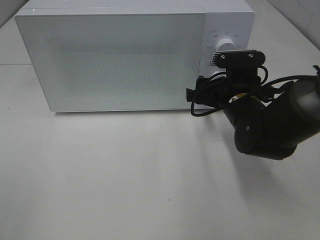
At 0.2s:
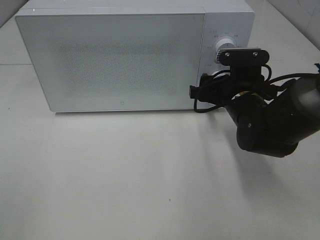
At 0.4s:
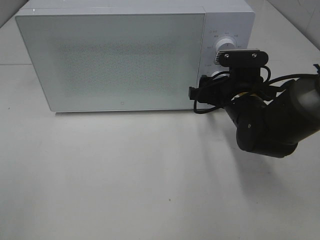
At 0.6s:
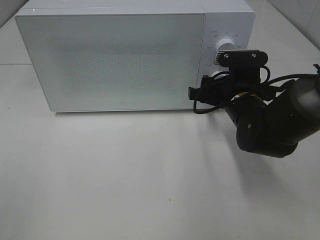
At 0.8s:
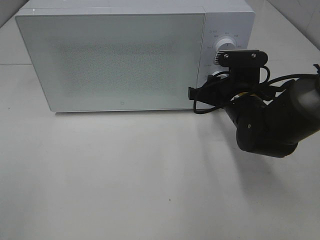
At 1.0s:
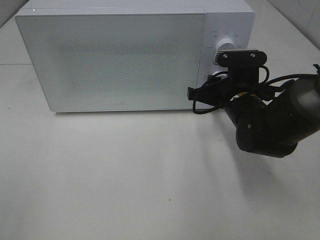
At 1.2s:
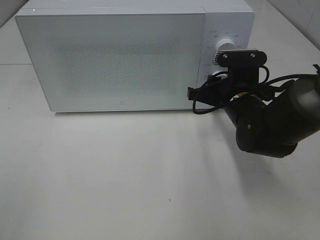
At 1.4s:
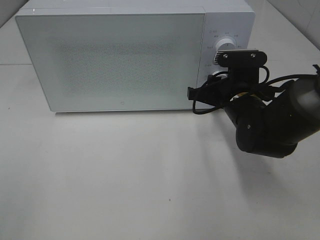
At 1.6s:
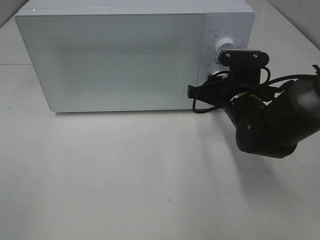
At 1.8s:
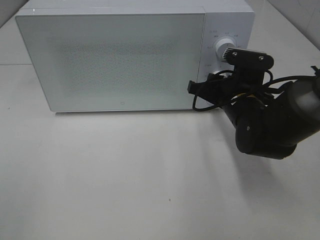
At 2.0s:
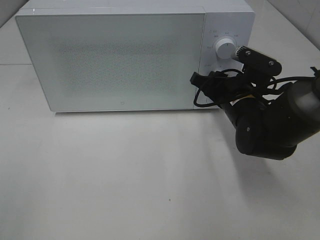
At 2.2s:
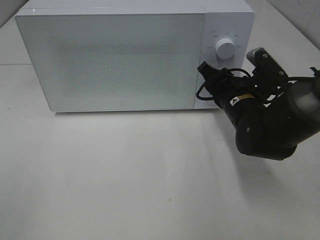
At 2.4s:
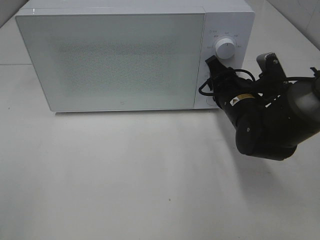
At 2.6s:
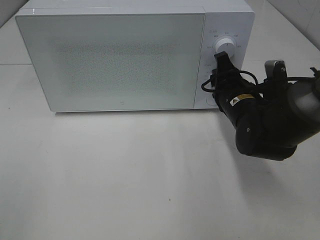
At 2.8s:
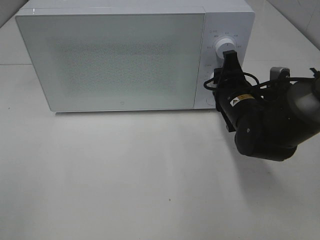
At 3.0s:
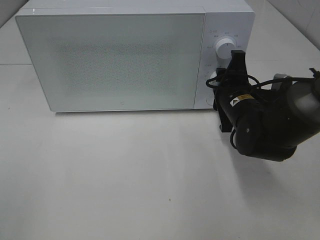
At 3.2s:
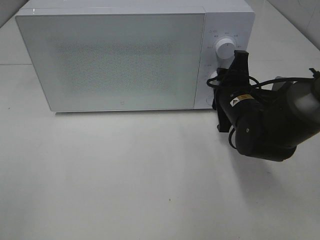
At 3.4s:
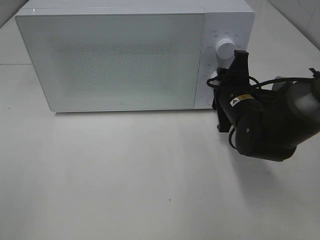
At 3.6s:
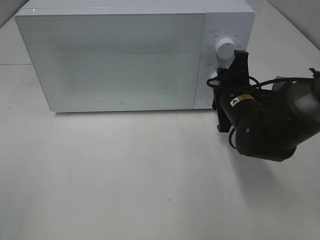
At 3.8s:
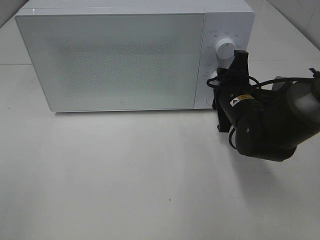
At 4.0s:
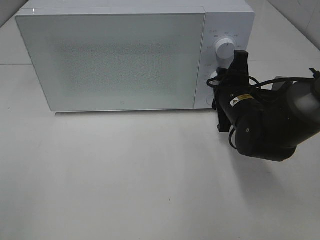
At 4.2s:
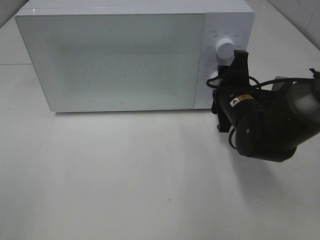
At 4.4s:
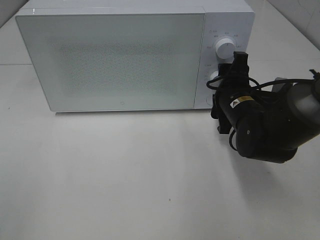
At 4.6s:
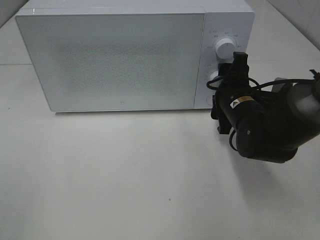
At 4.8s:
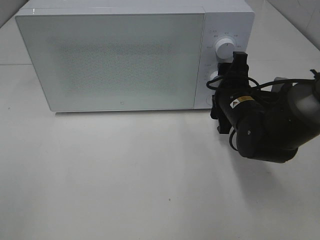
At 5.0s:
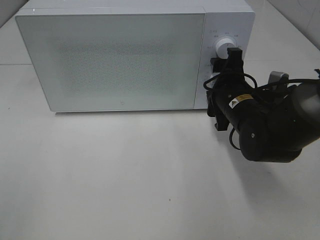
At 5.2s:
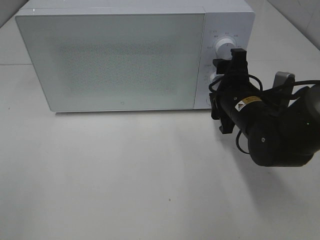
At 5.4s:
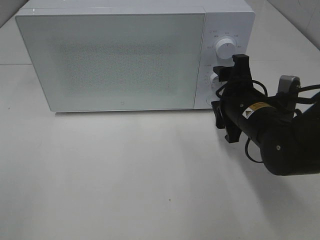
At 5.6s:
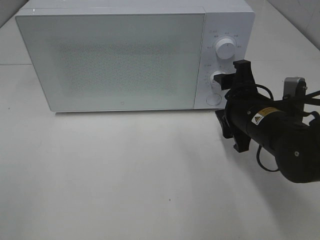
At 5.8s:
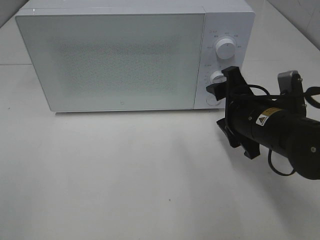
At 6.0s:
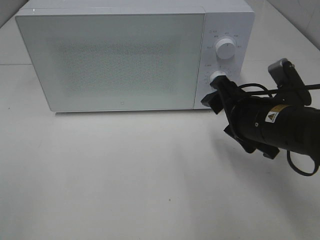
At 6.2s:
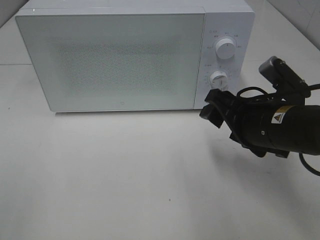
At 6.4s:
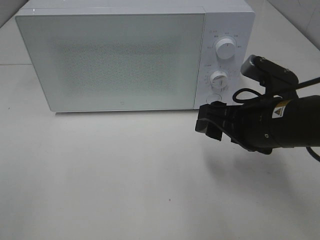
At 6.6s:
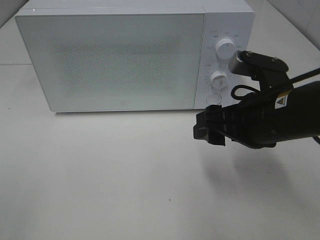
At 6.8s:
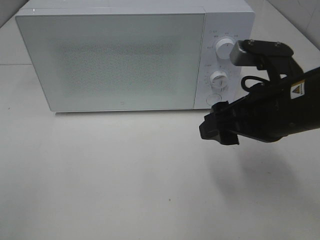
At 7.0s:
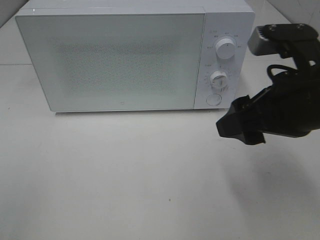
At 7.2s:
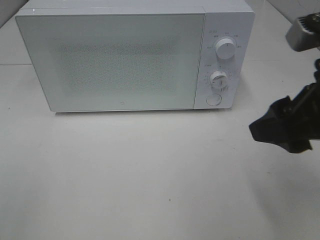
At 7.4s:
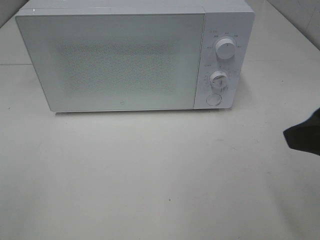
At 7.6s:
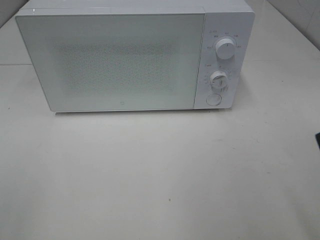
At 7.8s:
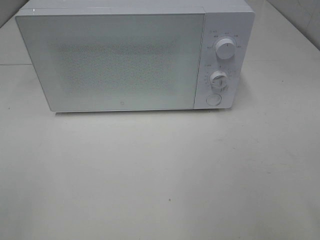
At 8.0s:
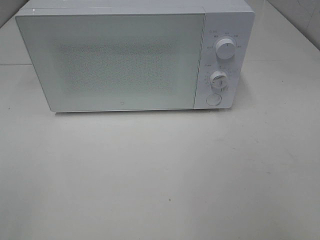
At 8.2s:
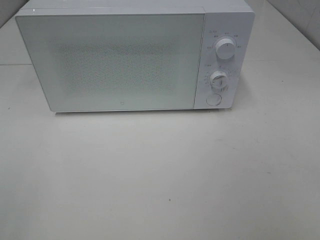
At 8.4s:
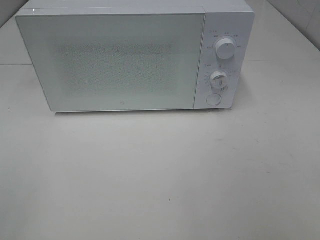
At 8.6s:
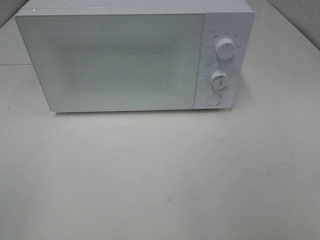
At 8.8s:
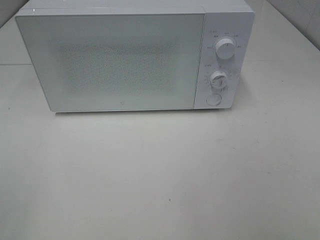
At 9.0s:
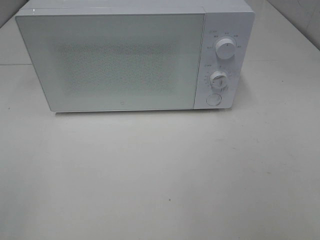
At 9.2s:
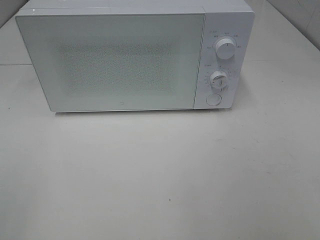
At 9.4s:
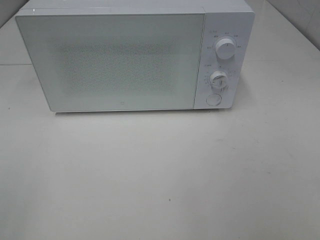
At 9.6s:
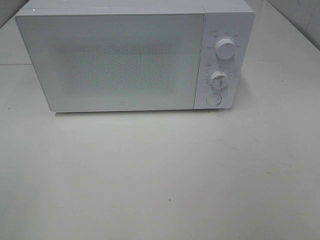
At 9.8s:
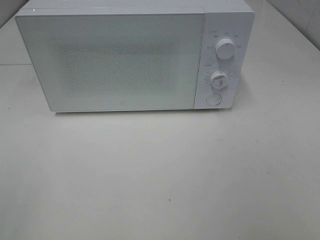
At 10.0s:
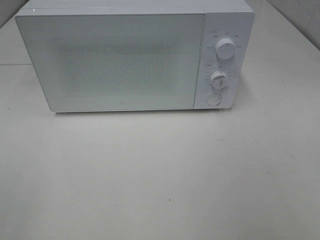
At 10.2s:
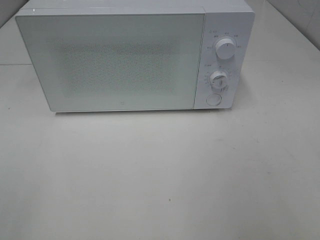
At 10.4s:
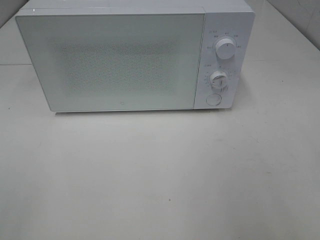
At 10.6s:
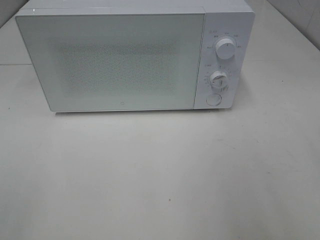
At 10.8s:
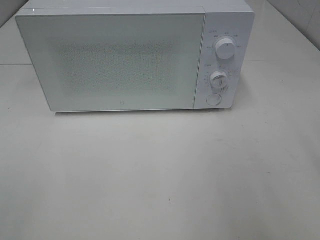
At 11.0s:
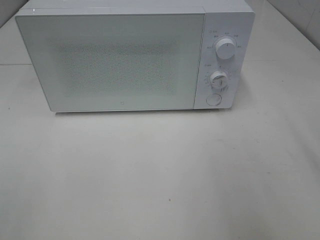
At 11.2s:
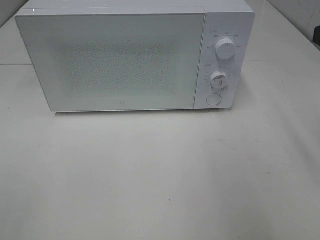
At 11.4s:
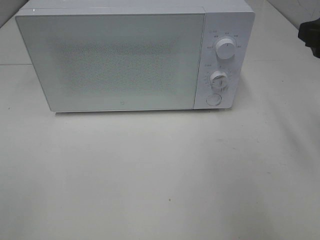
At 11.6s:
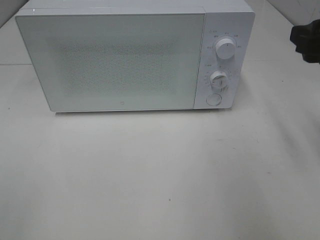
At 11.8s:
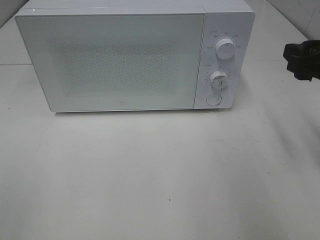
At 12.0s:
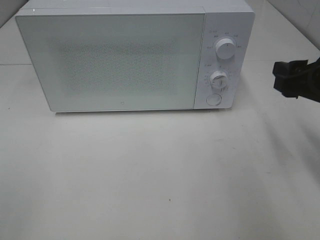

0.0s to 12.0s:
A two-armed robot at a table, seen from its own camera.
Task of the whole recording: Heat Sandwich.
Step, 0.0s to 5.6s: Right hand: twist timer button.
0.0s to 1.6s: The right gripper closes.
3.0s to 4.4s: Neither gripper changes place.
4.4s to 6.0s: The right gripper goes roughly 10 cm backward.
6.0s to 7.6s: The right gripper travels upward, backward and to the right by roughly 20 cm.
10.4s to 12.0s: The right gripper heads forward and downward, covering approximately 20 cm.

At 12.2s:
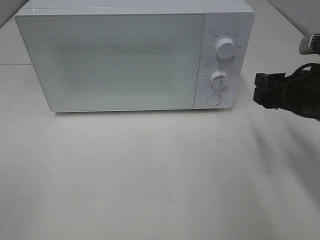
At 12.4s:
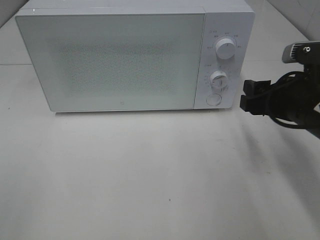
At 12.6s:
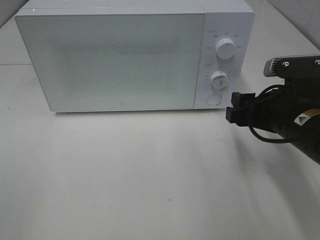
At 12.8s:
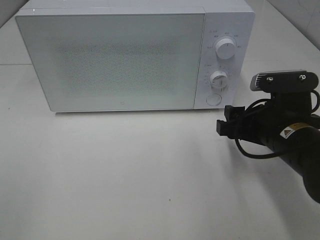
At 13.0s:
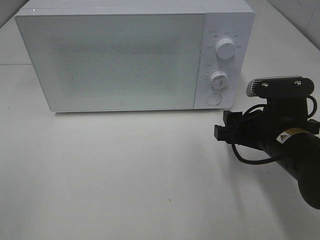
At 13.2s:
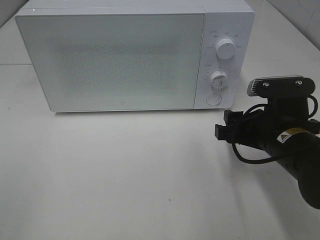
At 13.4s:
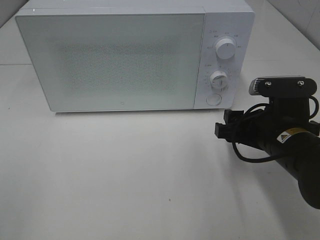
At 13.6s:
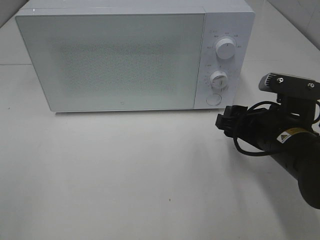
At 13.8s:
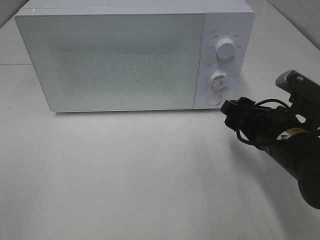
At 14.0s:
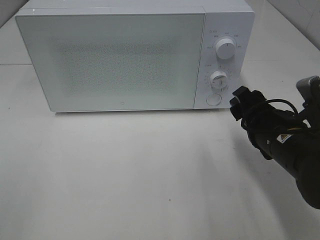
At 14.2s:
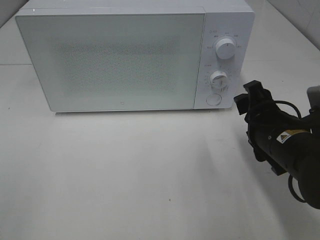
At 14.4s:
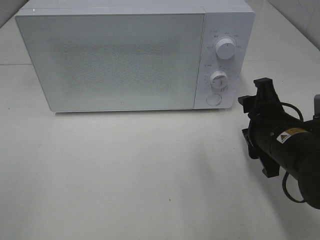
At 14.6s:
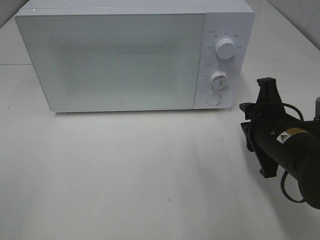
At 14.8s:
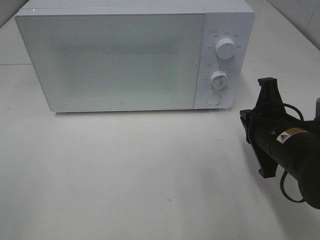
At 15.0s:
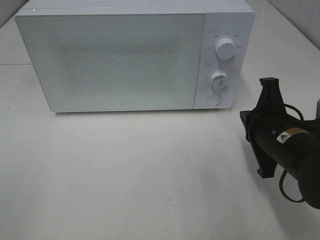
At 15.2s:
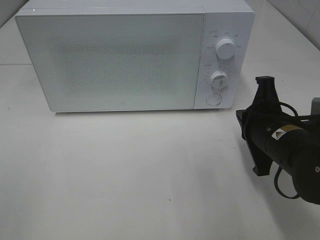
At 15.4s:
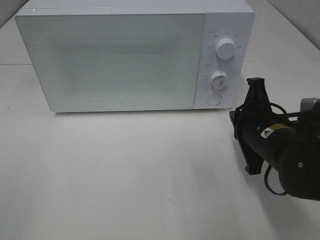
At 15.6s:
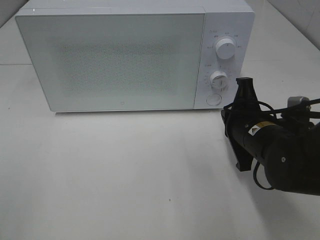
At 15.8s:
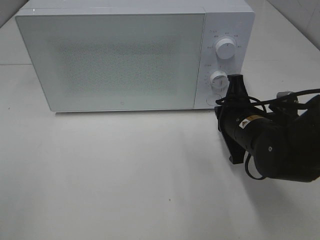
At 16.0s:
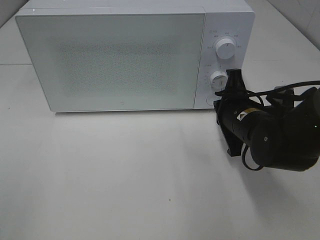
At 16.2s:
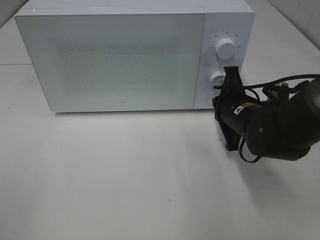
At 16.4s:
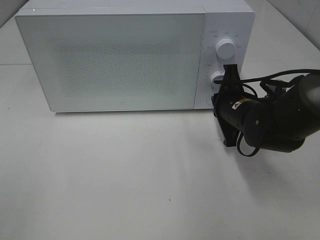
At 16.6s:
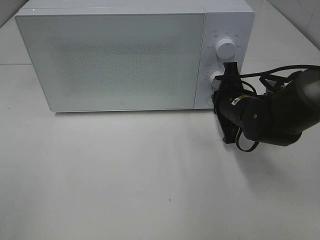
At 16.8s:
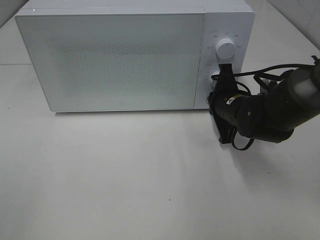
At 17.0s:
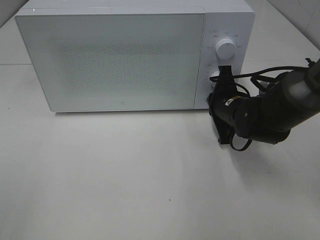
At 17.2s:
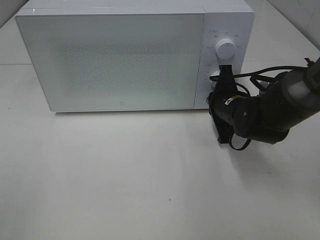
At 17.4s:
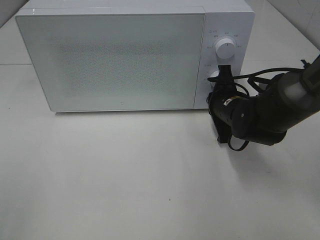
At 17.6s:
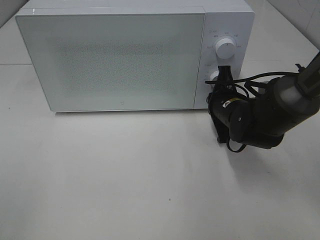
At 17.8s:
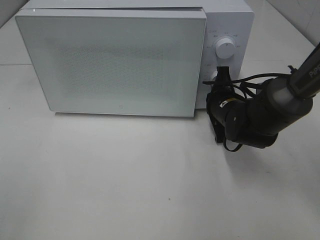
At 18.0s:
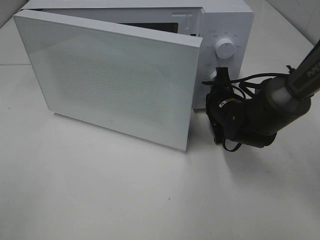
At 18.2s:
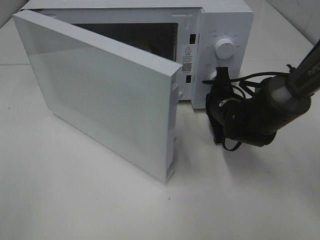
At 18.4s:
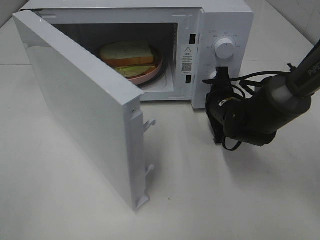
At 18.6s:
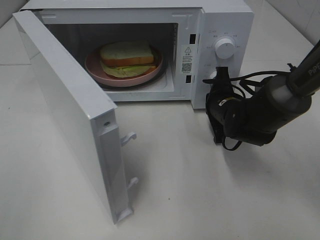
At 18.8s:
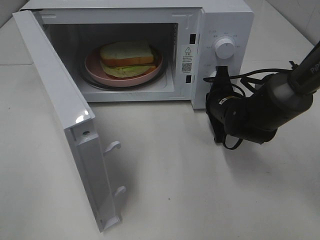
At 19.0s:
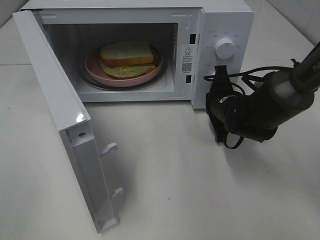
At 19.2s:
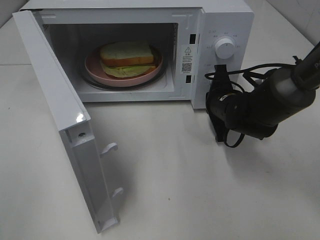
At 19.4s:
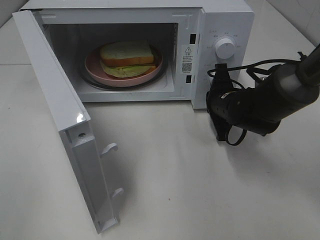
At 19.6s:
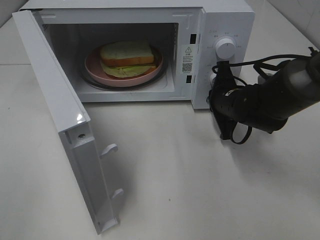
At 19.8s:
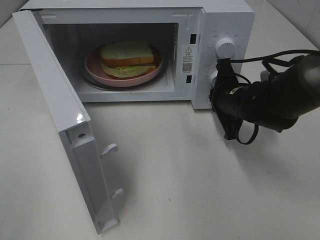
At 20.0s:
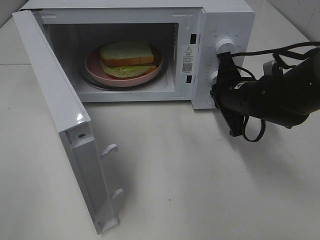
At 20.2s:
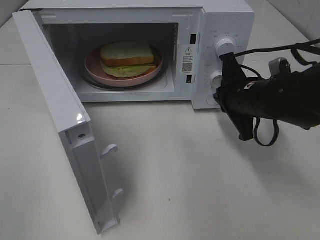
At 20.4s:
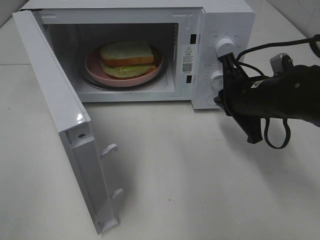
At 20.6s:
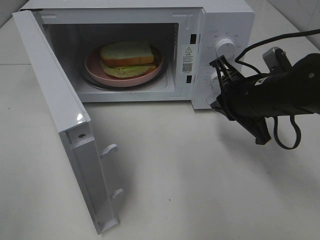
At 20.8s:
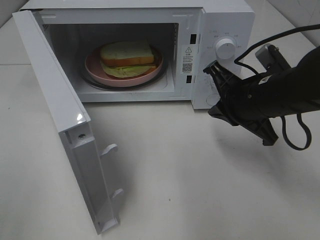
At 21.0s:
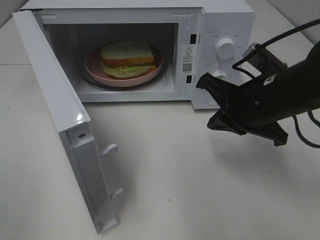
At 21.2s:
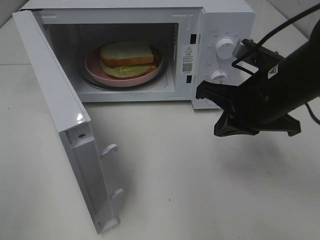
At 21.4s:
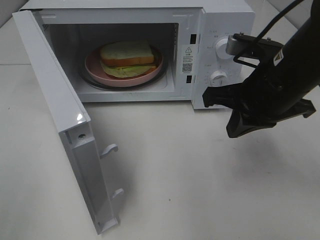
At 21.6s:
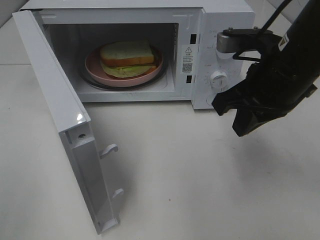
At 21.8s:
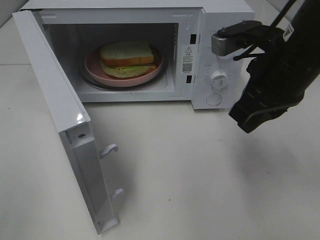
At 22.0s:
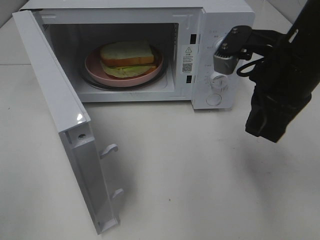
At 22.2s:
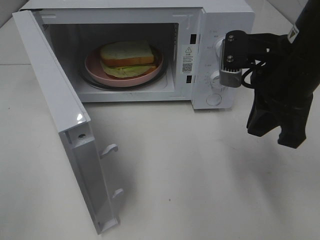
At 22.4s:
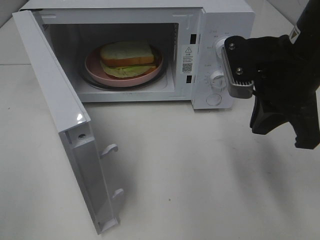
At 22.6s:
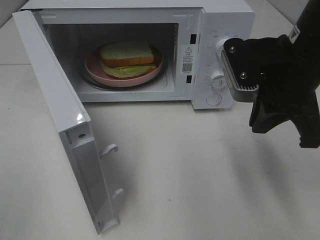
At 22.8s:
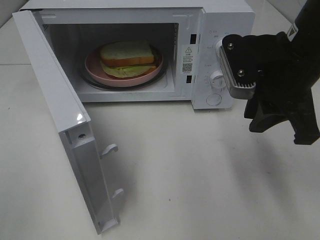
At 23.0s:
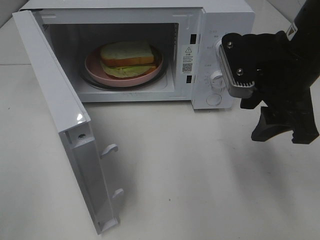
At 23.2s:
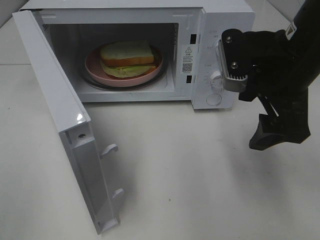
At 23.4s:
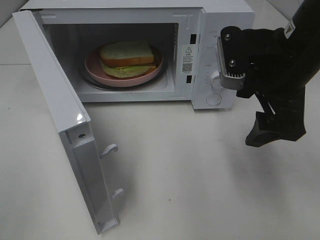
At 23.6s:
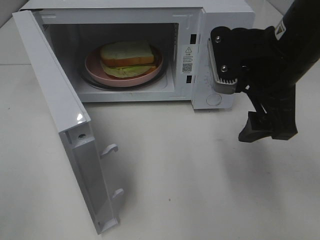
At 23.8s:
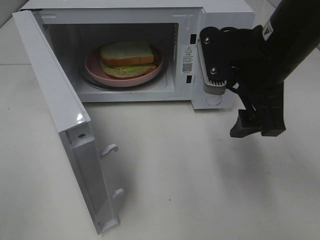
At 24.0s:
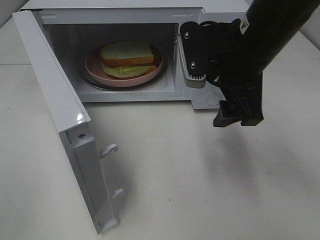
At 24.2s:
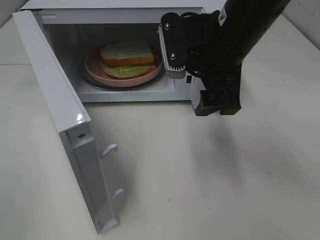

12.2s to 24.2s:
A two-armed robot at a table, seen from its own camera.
Task of the whole recording: Heat Sandwich.
Step, 12.2s to 19.8s: Right hand: press the switch.
12.2s to 13.8s: The right gripper moves downward and to the left, about 10 cm.
13.8s to 15.2s: The right gripper closes up.
15.2s to 16.6s: The right gripper travels forward by about 10 cm.
19.8s to 21.2s: The right gripper heads upward and backward, covering approximately 15 cm.
21.2s to 22.6s: The right gripper shifts by roughly 5 cm.
22.6s to 24.2s: The right gripper heads to the left, covering approximately 5 cm, and opens up.
